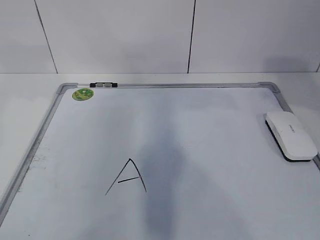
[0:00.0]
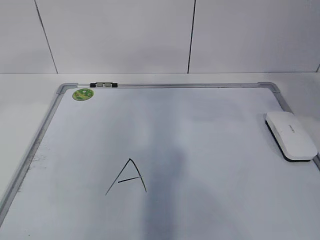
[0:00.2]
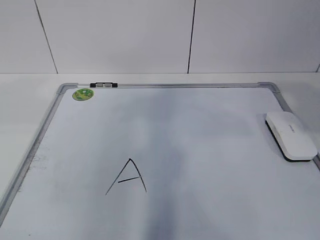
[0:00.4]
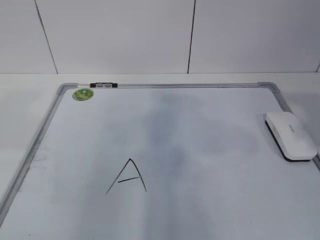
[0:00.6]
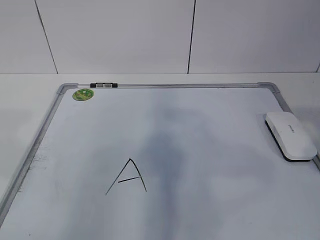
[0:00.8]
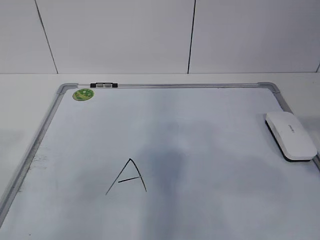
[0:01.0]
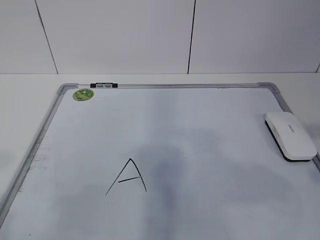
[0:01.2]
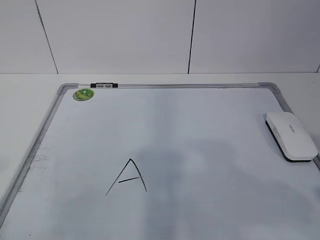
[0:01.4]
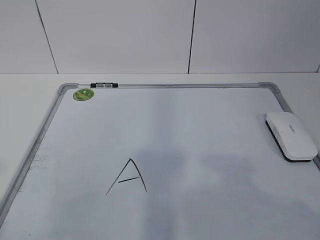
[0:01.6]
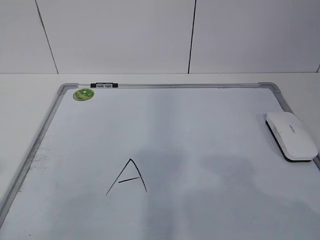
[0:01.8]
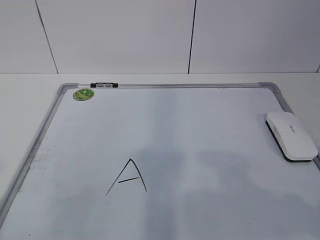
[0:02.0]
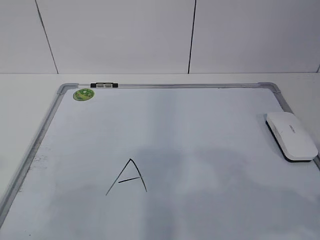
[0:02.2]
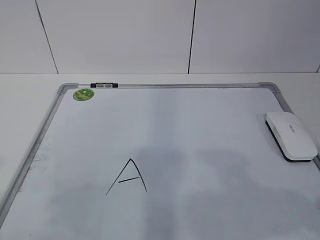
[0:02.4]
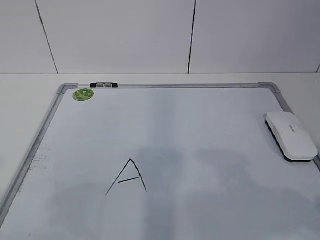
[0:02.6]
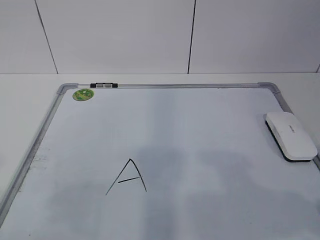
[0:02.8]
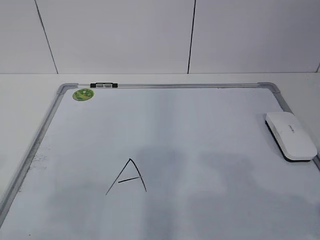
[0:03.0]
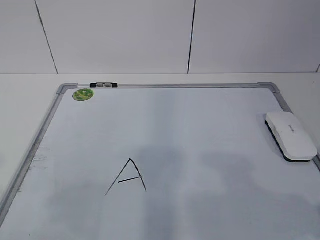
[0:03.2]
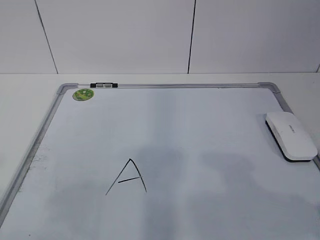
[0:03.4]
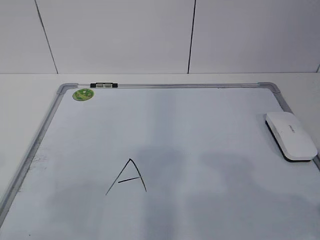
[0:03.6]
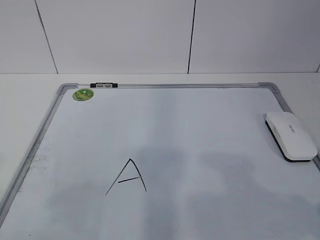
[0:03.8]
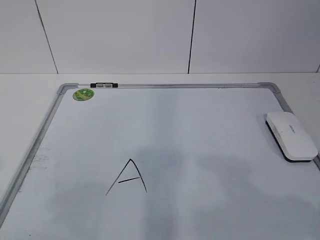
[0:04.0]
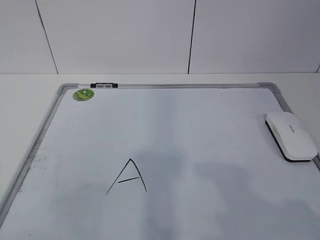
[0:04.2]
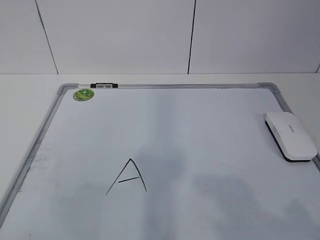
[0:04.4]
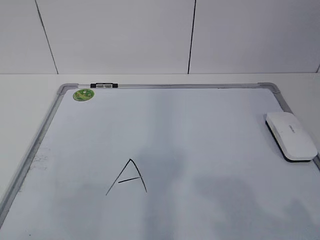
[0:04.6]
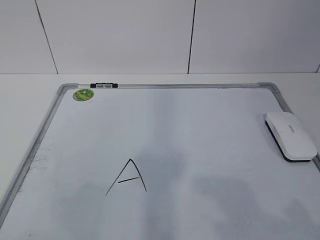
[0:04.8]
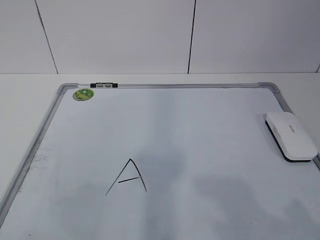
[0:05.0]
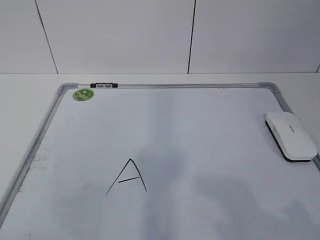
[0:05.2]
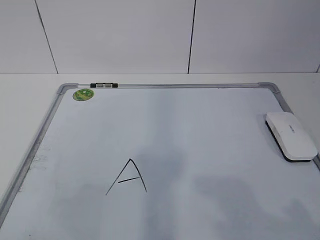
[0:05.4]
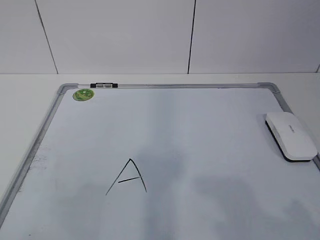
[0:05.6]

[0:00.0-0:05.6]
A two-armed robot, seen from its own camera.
Task of the whole recording: pick up the eraser on the blackboard and erase the letter "a".
0:00.0 to 0:01.4: The right gripper moves backward, some 20 cm.
